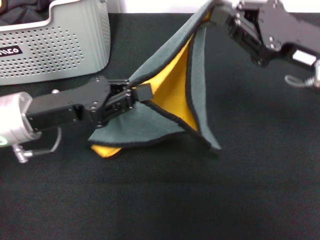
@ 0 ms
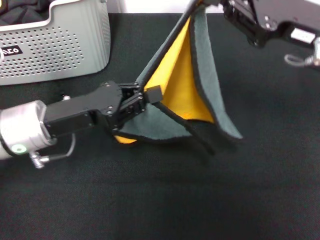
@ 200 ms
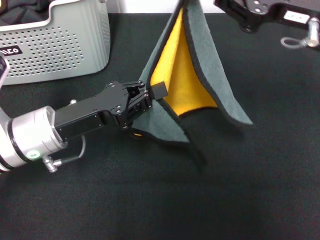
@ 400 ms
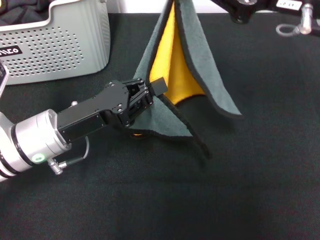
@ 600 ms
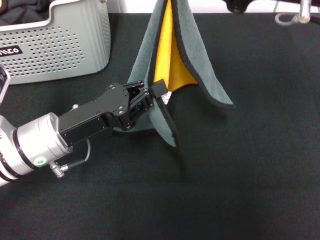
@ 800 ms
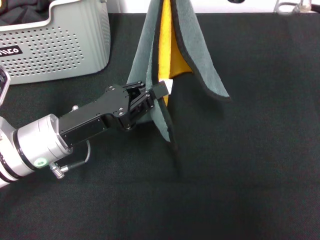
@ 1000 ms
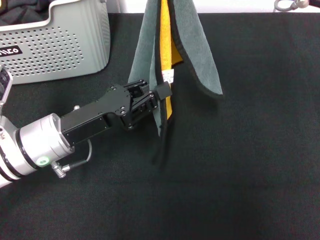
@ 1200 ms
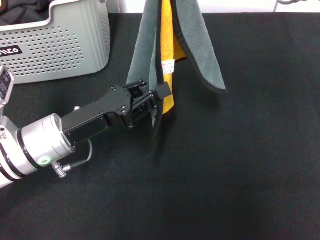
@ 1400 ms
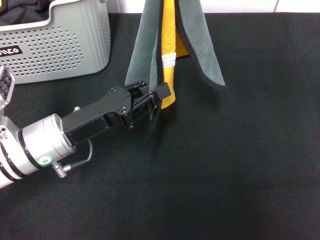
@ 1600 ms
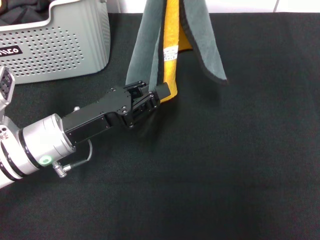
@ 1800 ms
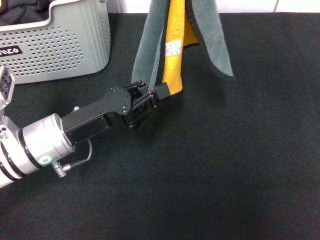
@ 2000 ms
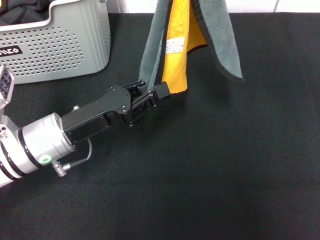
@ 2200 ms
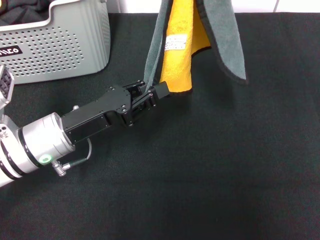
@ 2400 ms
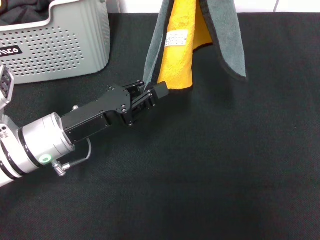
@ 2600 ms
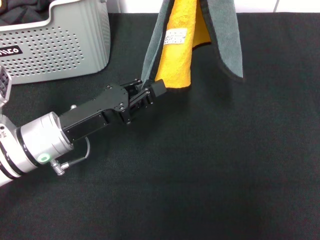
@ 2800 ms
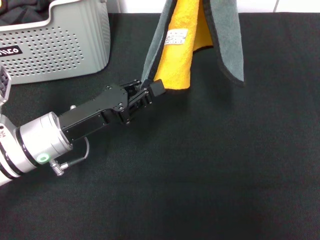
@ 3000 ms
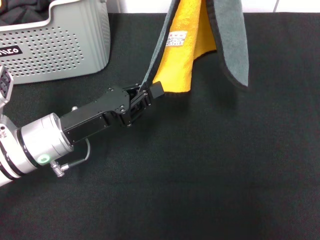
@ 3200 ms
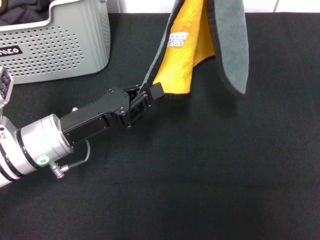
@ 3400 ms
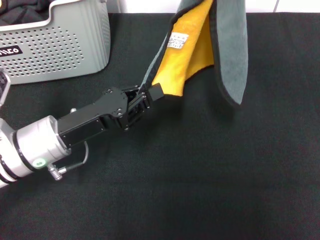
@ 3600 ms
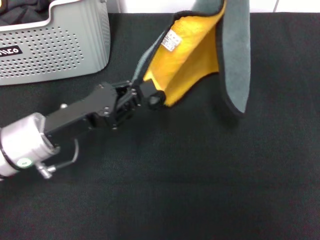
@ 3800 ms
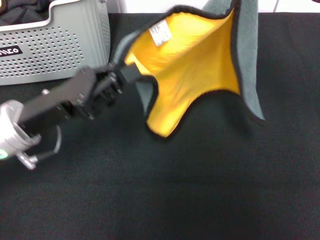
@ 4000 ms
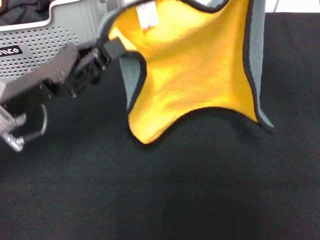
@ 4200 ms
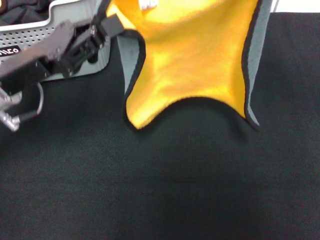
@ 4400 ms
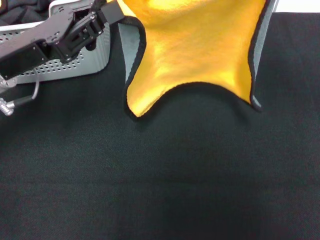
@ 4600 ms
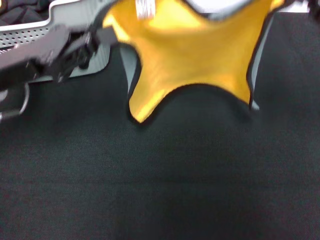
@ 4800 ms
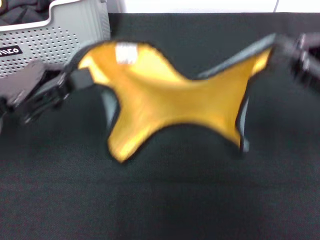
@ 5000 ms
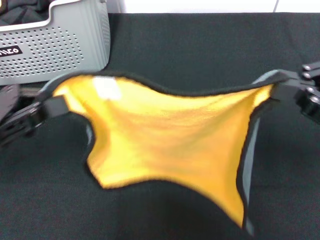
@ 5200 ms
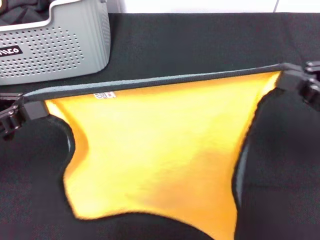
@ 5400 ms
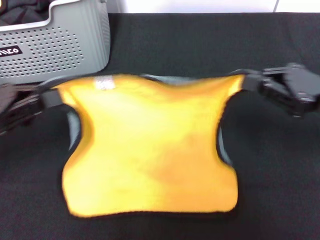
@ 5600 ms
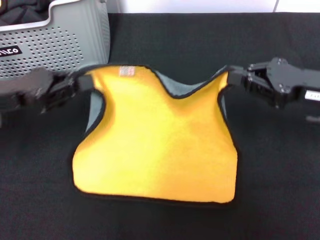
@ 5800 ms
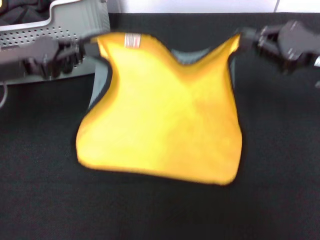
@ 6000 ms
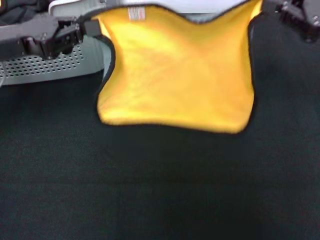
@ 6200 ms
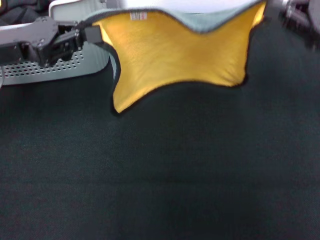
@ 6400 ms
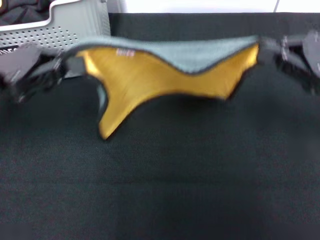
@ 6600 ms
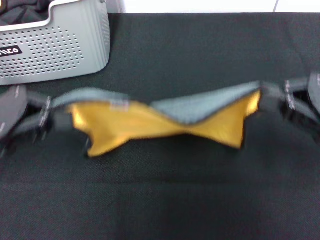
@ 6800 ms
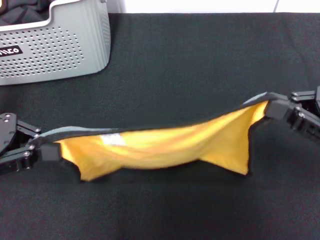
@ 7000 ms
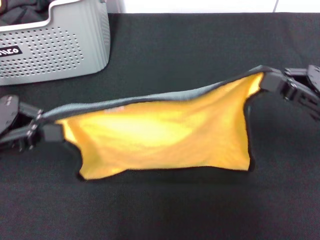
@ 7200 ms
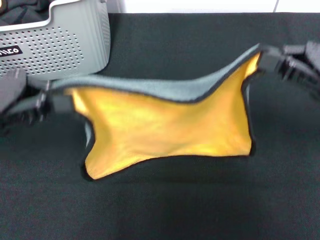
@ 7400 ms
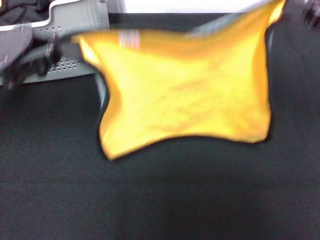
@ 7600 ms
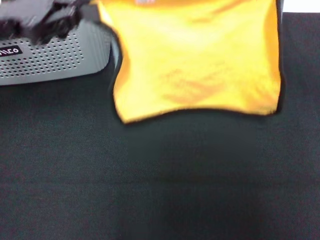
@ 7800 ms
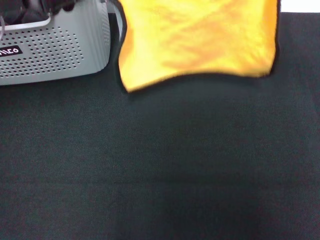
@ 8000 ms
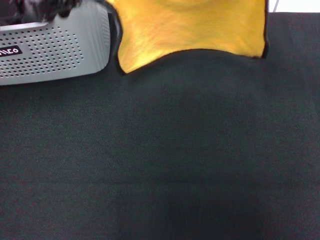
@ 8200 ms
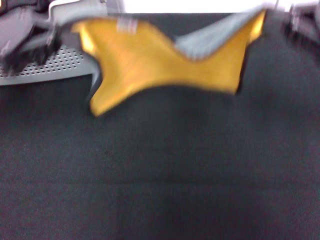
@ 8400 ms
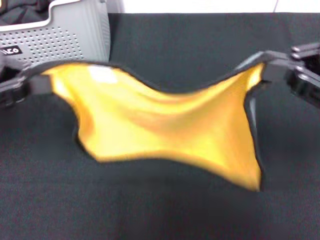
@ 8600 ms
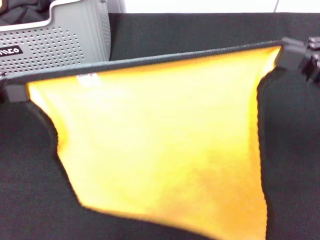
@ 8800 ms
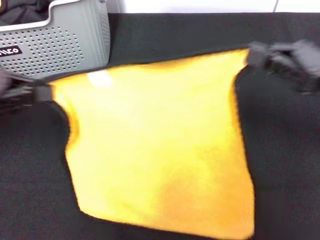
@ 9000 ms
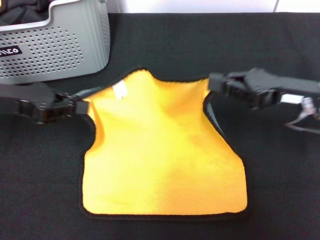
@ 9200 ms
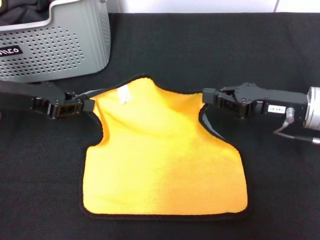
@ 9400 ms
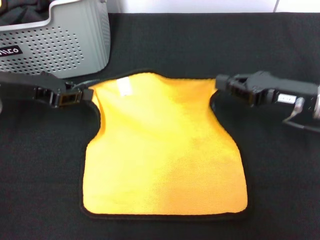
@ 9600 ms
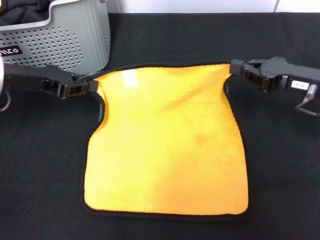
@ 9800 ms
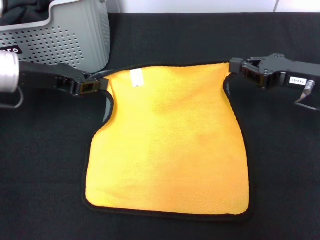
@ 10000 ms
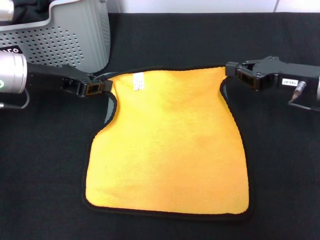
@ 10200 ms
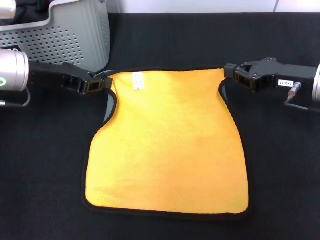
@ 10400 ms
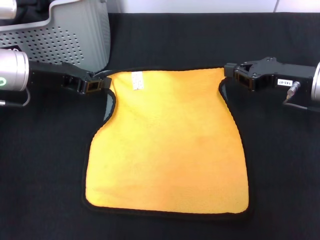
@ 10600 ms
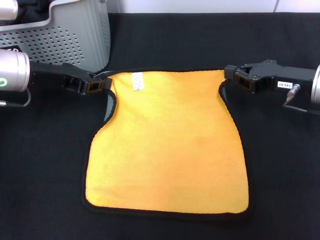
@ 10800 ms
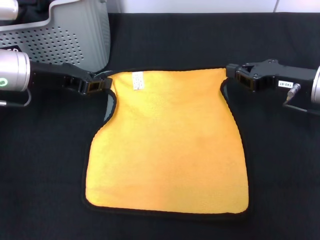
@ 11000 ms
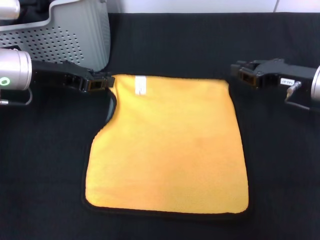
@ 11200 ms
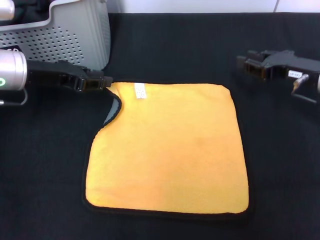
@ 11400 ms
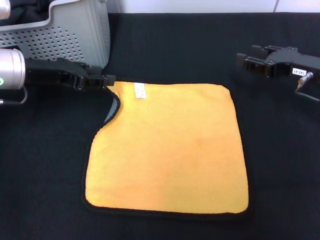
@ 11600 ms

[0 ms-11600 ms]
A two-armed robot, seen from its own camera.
Task of the whole recording: pick up the towel from the storage box and lay it flat on the black tablecloth.
Step, 0 ms to 11200 ms: Spread the towel flat with the right gripper.
0 ms to 1400 ms: The left gripper shifts by approximately 5 cm, while the right gripper heads upward, covering some 10 cm.
1400 ms to 2800 ms: The grippers make only small movements.
2800 ms to 4400 ms: The right gripper heads to the right and downward, covering approximately 10 cm; the left gripper heads upward, covering about 10 cm.
4400 ms to 5800 ms: The right gripper travels downward by about 10 cm, while the left gripper travels to the left by roughly 5 cm.
5800 ms to 7200 ms: The left gripper moves about 5 cm backward and comes back. Meanwhile the right gripper heads backward, covering approximately 5 cm.
7200 ms to 8800 ms: The right gripper shifts approximately 5 cm upward, and moves approximately 10 cm forward and comes back; the left gripper goes forward and returns, roughly 10 cm each way.
8800 ms to 10200 ms: The left gripper moves forward, to the right and downward, roughly 15 cm. Meanwhile the right gripper goes some 15 cm forward and downward.
10200 ms to 11600 ms: The grippers move only a little.

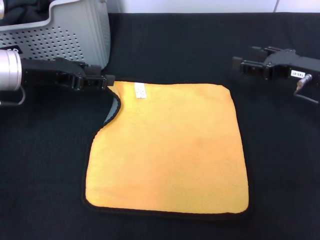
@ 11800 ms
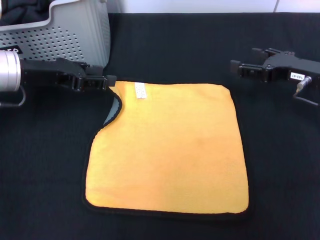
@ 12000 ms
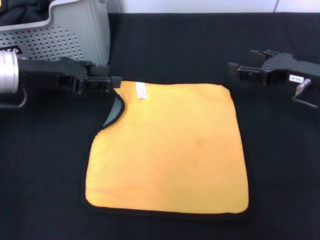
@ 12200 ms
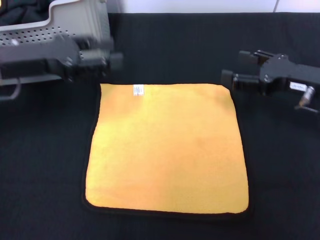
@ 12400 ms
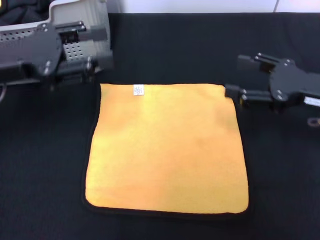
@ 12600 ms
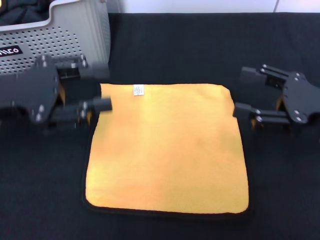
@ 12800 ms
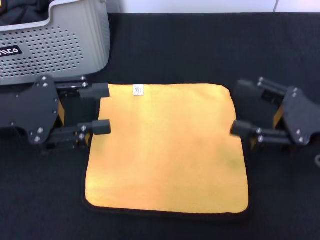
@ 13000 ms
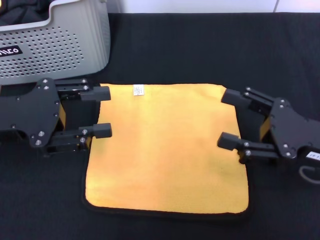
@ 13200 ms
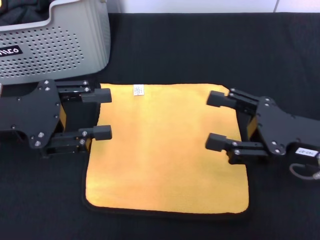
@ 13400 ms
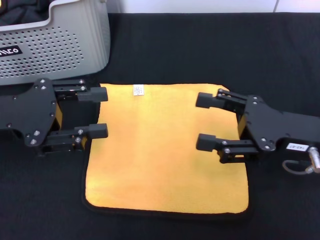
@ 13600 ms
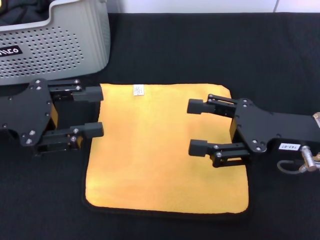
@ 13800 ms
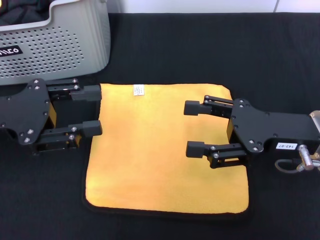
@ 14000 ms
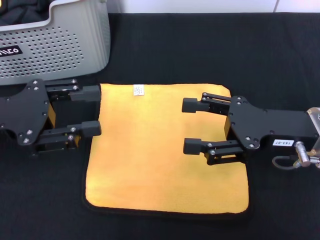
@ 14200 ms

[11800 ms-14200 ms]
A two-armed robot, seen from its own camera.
Task of the whole recording: pick up the towel from the storage box and lay it flat on the black tablecloth.
11800 ms to 13000 ms: Both grippers move backward, roughly 10 cm. The right gripper opens its fingers.
13000 ms to 14200 ms: The right gripper is displaced to the left by roughly 5 cm.
